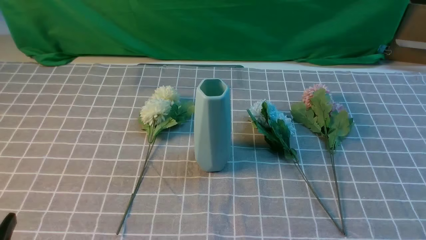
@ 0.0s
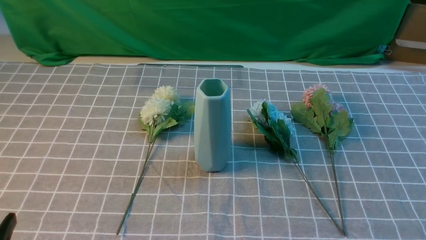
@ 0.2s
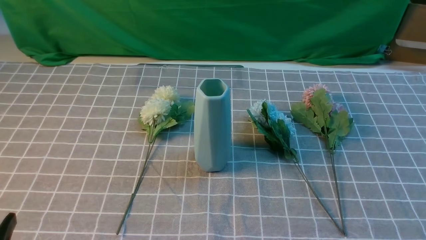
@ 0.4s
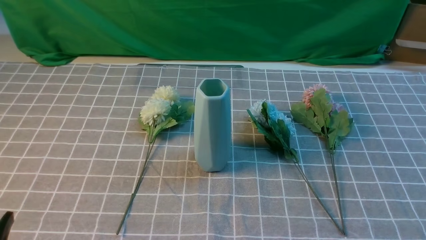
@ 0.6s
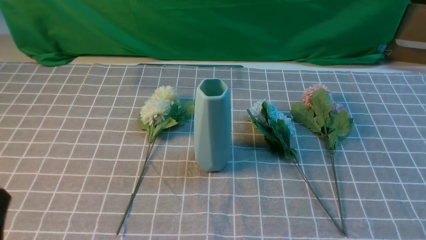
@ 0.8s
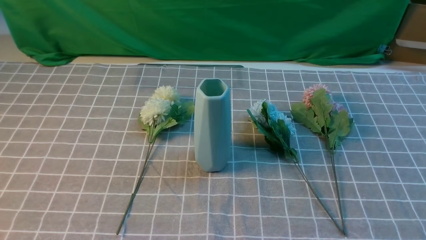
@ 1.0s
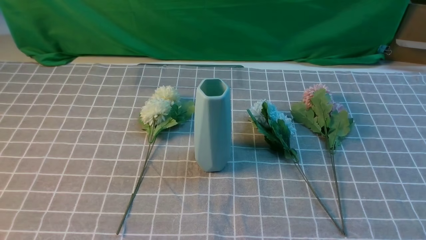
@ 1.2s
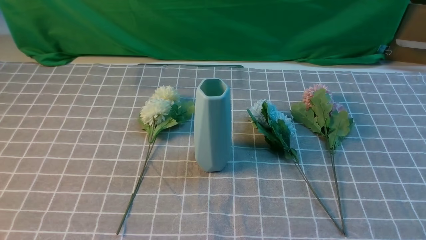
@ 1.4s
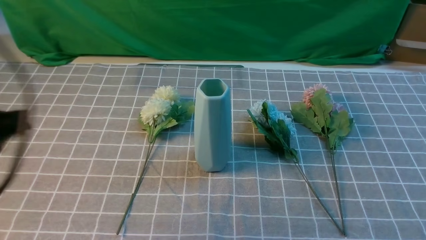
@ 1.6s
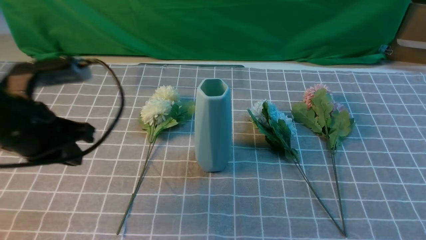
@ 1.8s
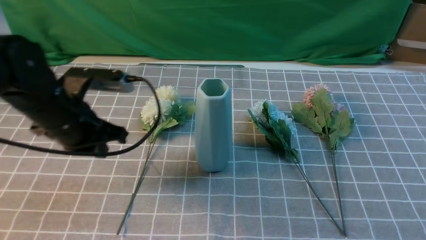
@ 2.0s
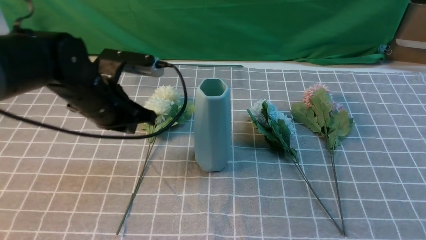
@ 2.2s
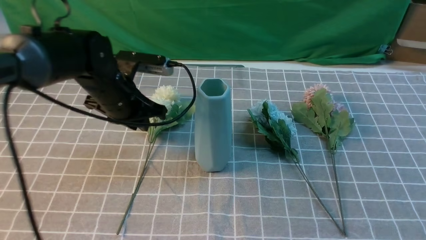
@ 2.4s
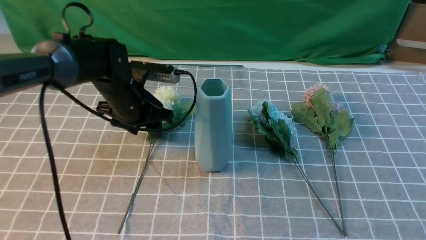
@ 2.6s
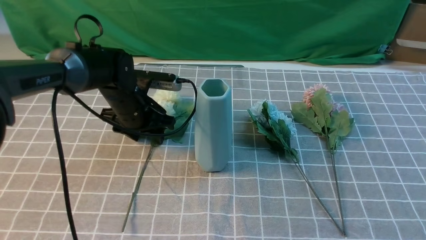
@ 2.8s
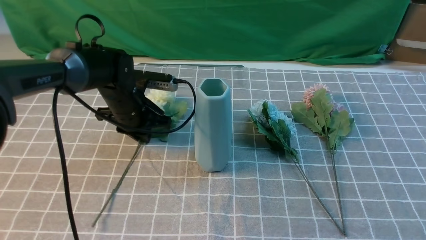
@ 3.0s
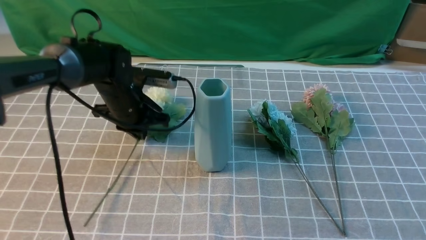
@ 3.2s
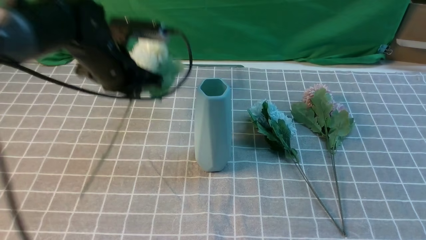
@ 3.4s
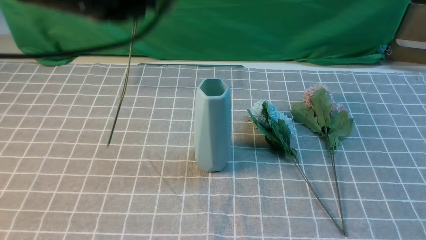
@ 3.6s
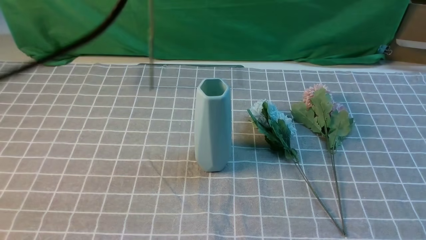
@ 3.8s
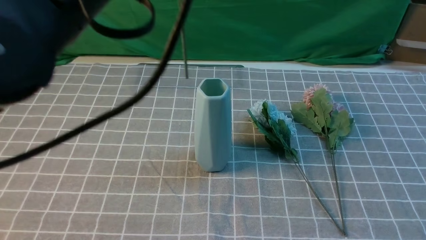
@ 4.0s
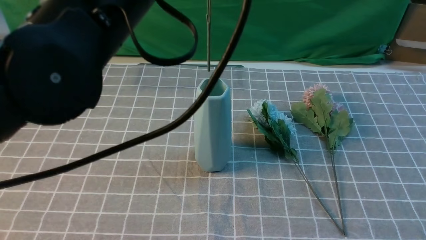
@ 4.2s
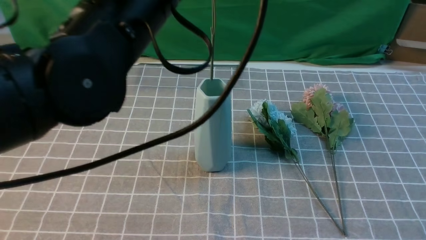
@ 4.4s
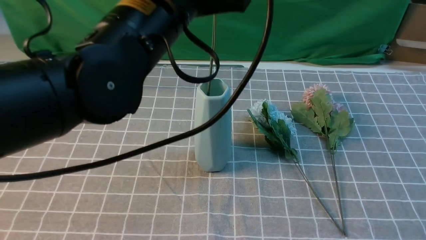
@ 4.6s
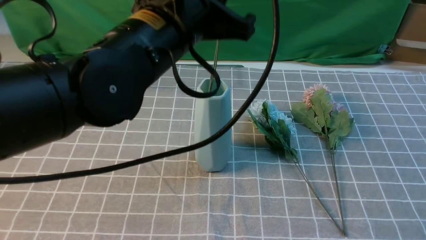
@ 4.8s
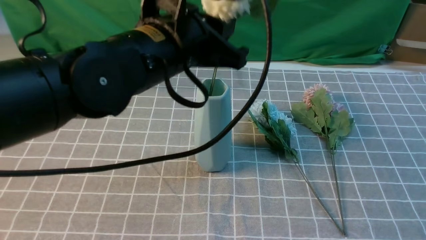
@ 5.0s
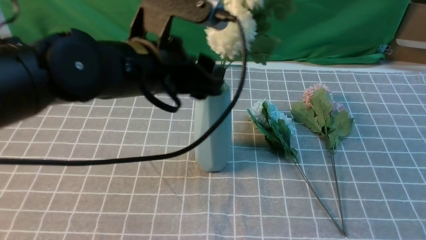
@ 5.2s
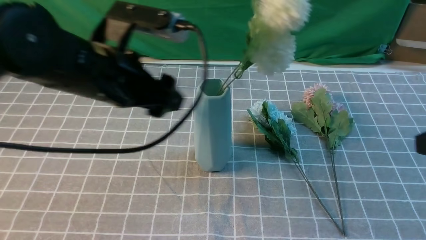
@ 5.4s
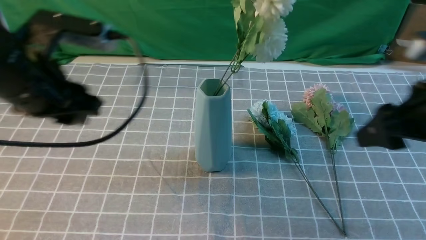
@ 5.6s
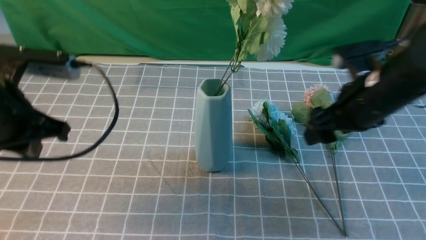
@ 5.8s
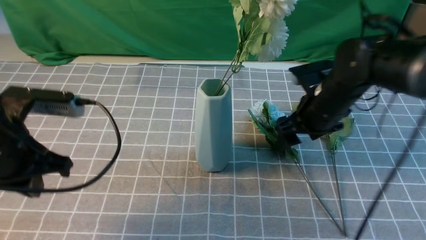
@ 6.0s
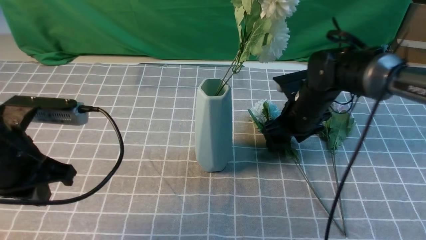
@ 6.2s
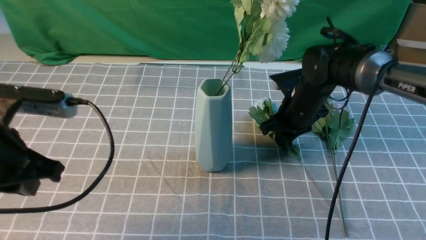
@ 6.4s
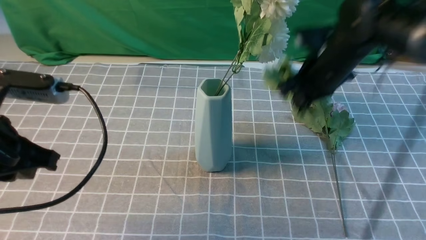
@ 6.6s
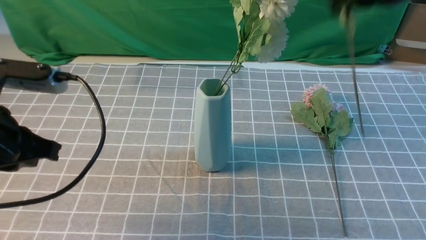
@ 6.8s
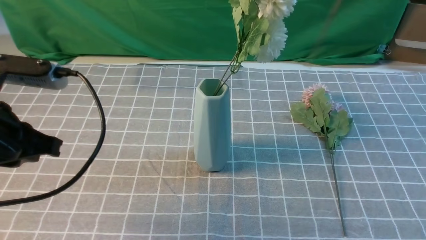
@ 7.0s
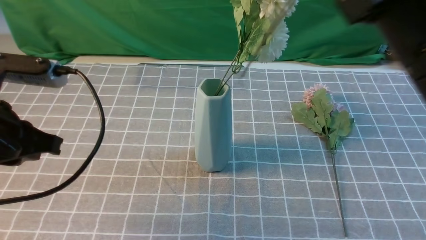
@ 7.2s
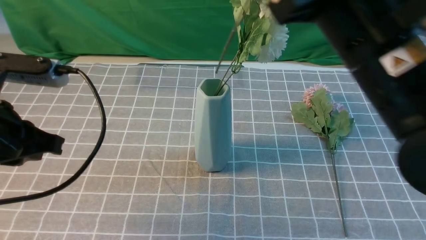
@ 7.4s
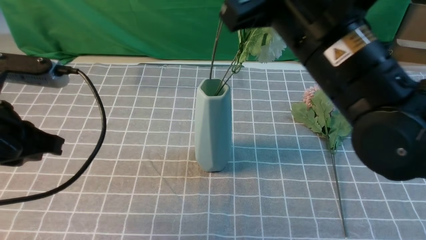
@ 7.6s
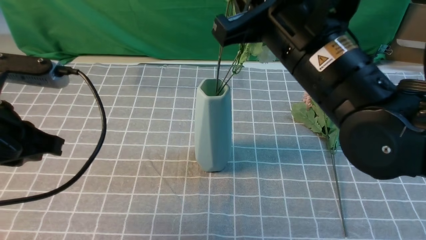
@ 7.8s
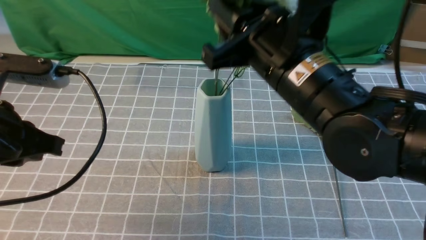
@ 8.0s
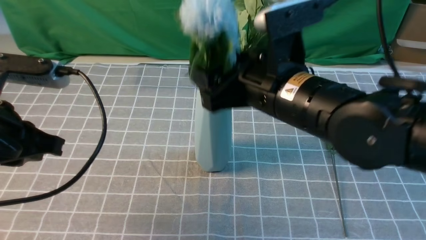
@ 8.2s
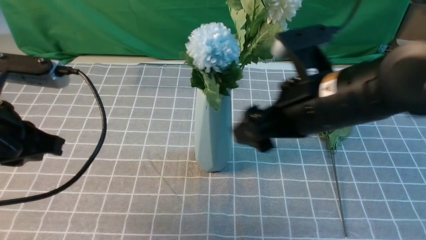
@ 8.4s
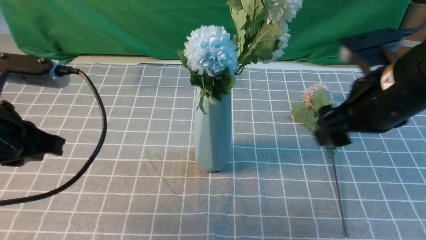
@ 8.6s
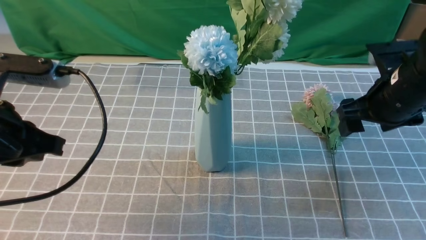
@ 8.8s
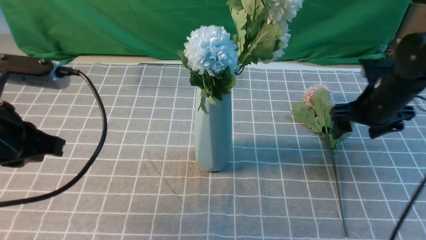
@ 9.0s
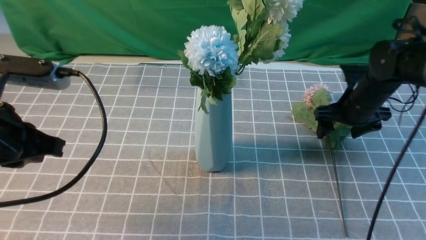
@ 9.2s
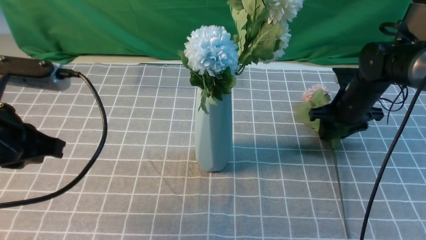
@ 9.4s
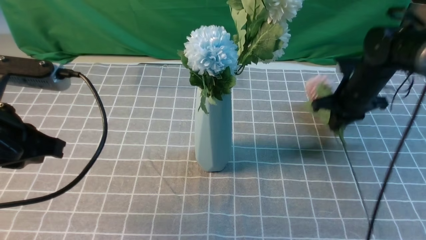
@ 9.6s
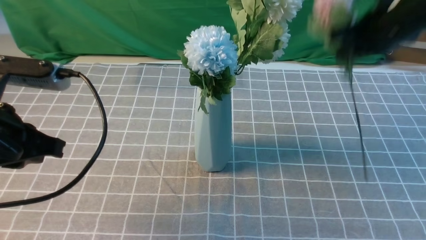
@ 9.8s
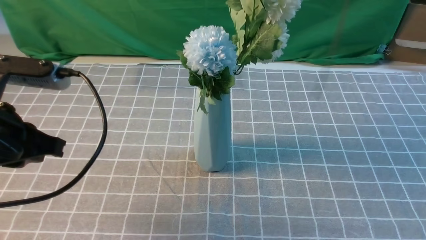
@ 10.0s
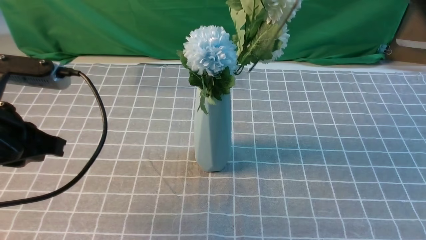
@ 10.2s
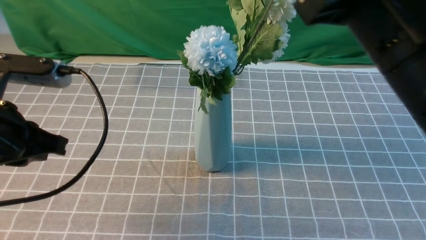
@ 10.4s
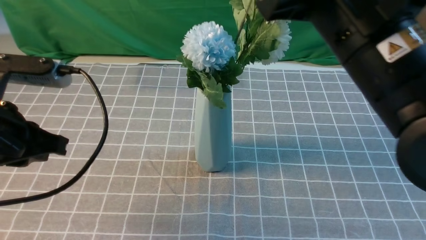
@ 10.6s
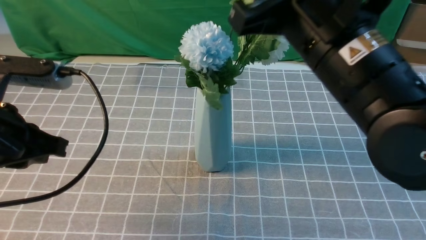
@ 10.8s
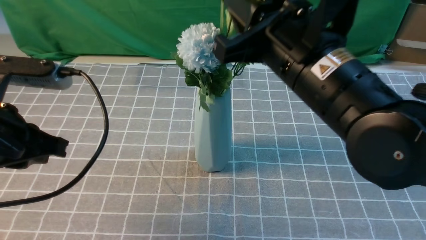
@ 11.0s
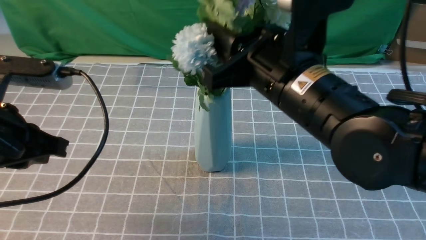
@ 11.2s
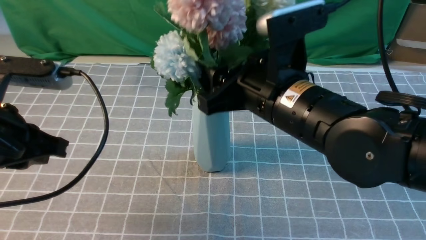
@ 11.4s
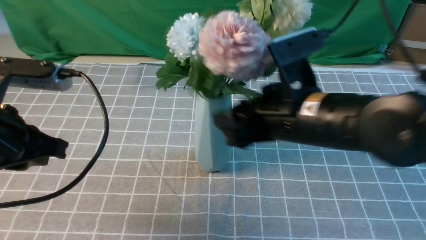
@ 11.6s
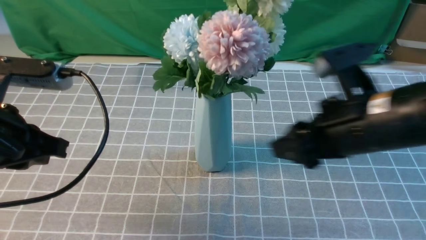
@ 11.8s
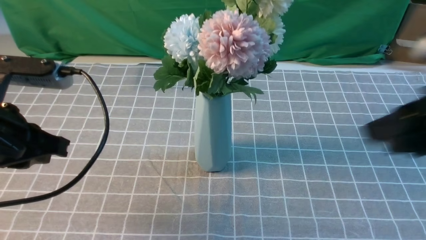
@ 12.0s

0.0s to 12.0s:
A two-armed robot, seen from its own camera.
Task of the whole recording: insert the flowers into the vase on the table with the grey tablecloth.
Step, 0.0s to 3.0s: use the left arm to grab a bunch of fresh flowers.
Step, 3.2s to 5.2s: use the left arm to insert the flowers into the vase.
Step, 5.4s to 6.4s: use the right arm to grab a bunch of fresh flowers.
Step, 6.6s to 8.2s: use the right arm to insert the flowers into the vase.
Step, 8.4s to 9.4s: use the right arm to grab a bunch of fresh flowers.
Step, 9.6s to 11.6s: use the right arm to insert the flowers into the vase.
0.0s to 1.6s: The left gripper goes some 20 cm upward and forward, and closes its fingers.
1.6s to 3.0s: The left gripper heads forward and downward, covering roughly 30 cm, and opens its fingers. The right gripper moves upward and forward, about 15 cm.
3.0s to 4.4s: The left gripper heads upward and backward, covering about 30 cm, and closes up.
4.4s to 6.0s: The right gripper heads forward, downward and to the left, covering some 35 cm, and opens, while the left gripper is displaced to the left and downward by approximately 20 cm, and opens and closes again.
6.0s to 7.6s: The right gripper goes some 20 cm upward and backward, and closes up.
7.6s to 9.0s: The right gripper moves downward, to the right and forward, about 30 cm, and opens up.
9.0s to 10.4s: The right gripper heads upward, backward and to the left, covering some 30 cm, and closes up.
10.4s to 12.0s: The right gripper shifts approximately 10 cm to the right, and opens, then closes once more.

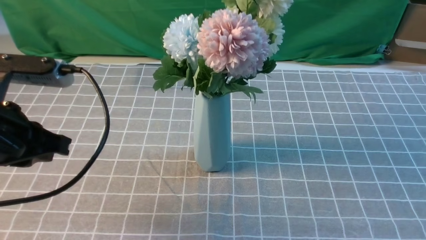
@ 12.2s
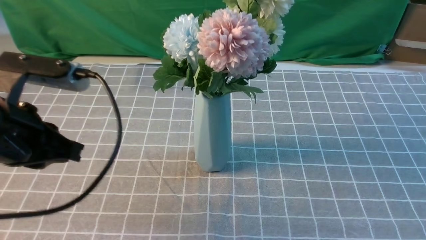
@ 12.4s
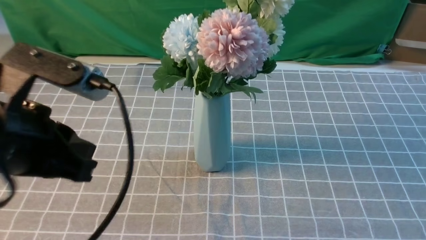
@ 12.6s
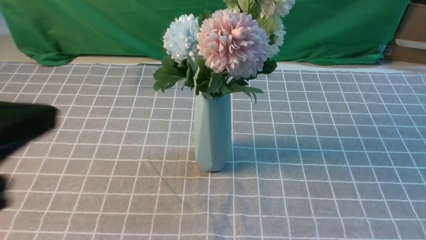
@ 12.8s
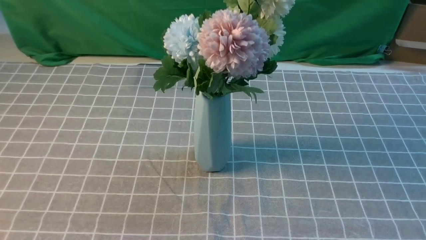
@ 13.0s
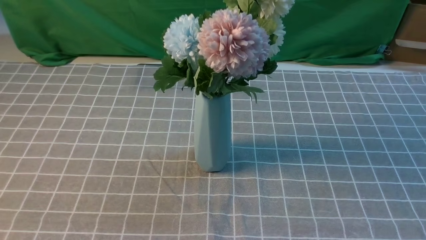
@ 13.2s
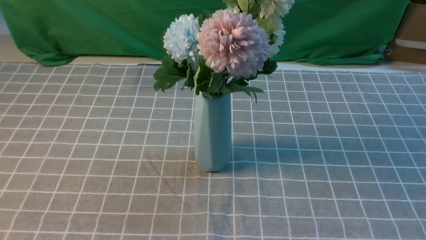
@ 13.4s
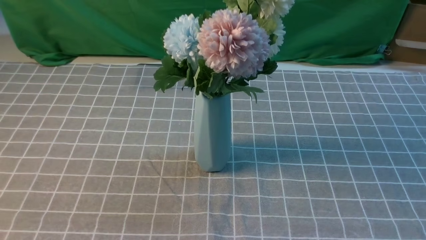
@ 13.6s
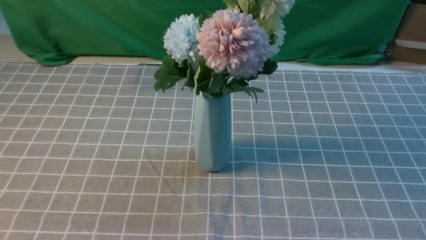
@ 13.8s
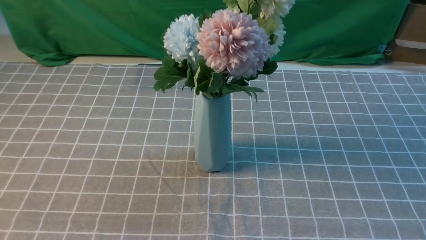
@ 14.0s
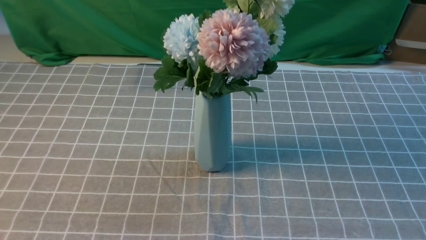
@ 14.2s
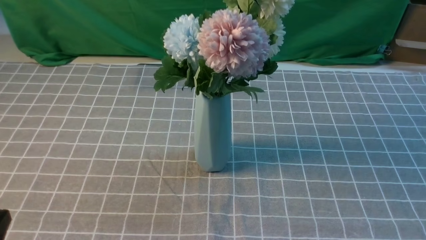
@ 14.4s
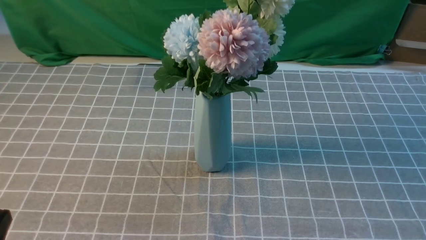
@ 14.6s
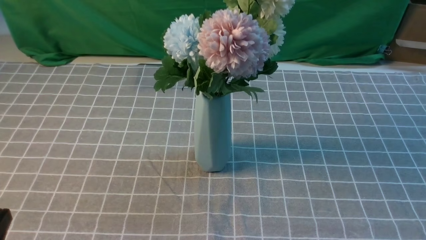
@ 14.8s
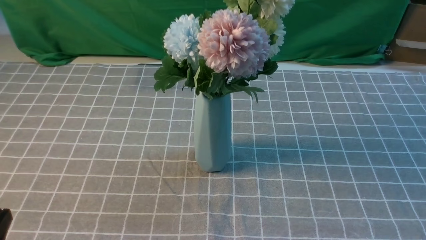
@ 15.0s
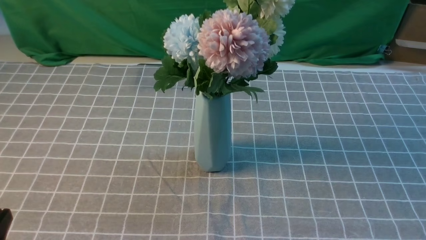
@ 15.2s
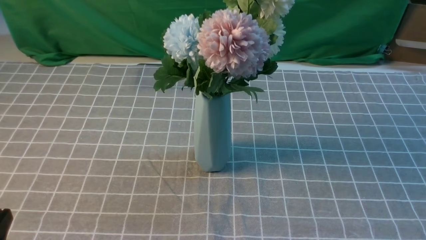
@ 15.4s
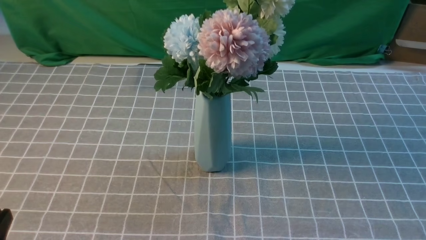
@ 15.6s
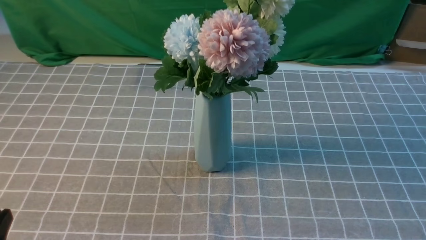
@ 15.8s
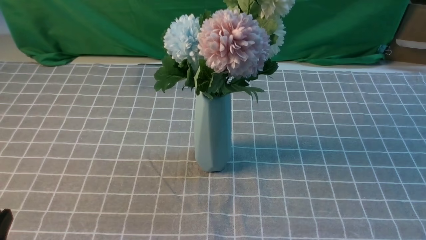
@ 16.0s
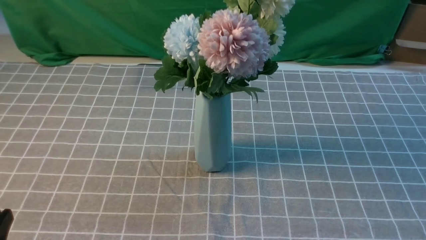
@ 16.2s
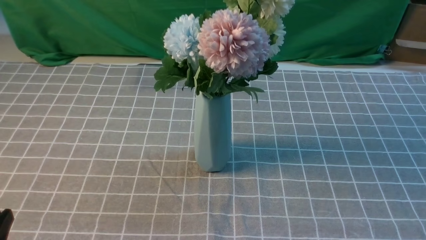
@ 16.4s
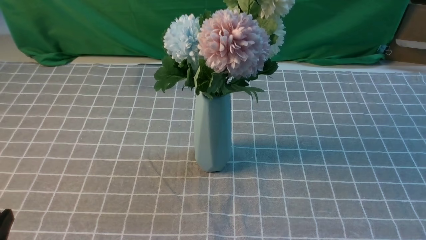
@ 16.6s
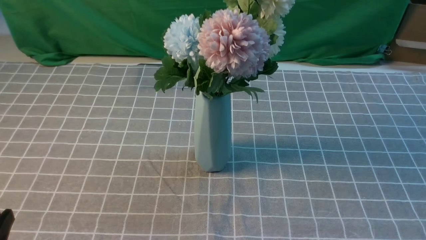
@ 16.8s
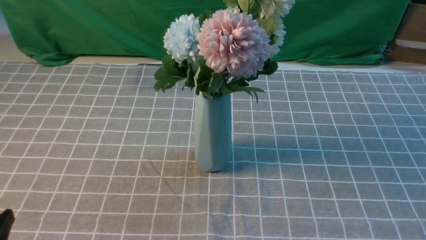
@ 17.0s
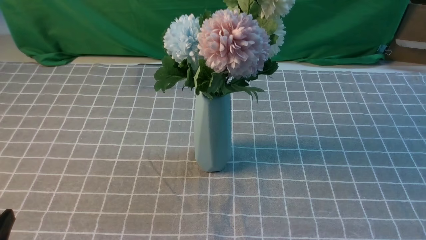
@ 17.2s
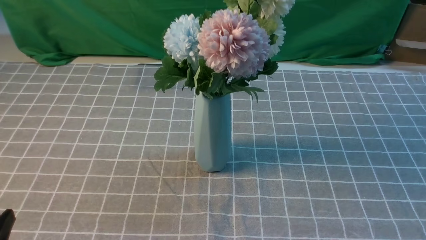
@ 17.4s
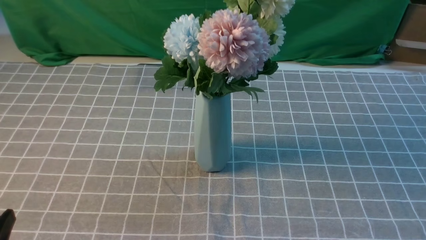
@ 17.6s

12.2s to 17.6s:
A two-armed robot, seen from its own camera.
Task of the whole recording: insert the flowers into the vase on the table with the grey tablecloth.
12.2s to 13.6s: The left gripper shifts about 20 cm backward. The right gripper moves downward and backward, about 10 cm.
16.2s to 17.6s: Both grippers stay put.
